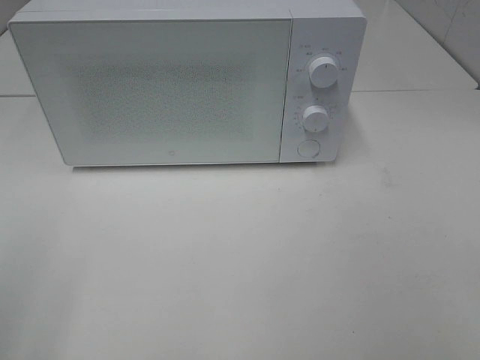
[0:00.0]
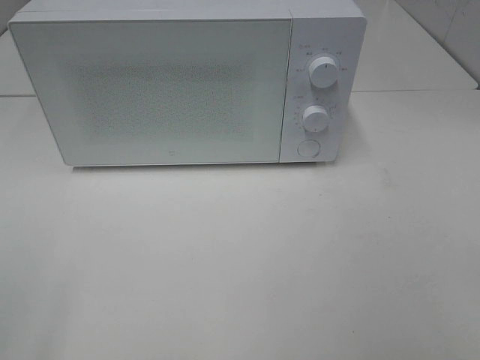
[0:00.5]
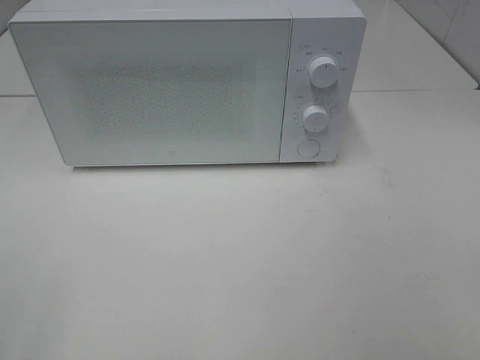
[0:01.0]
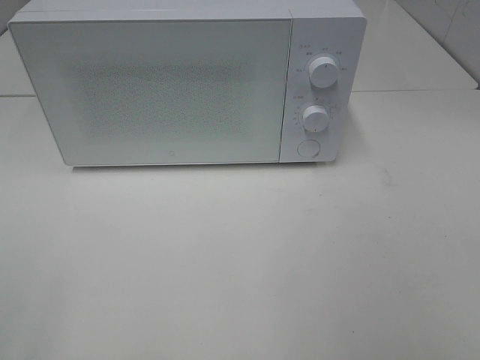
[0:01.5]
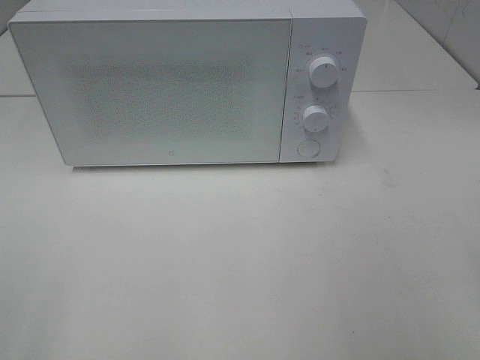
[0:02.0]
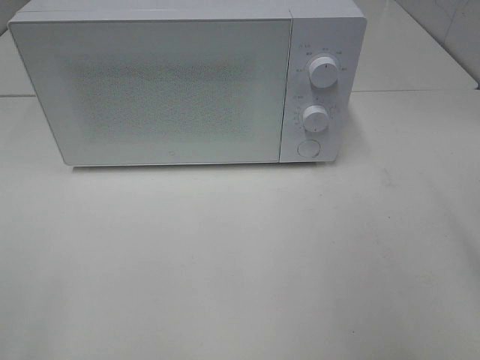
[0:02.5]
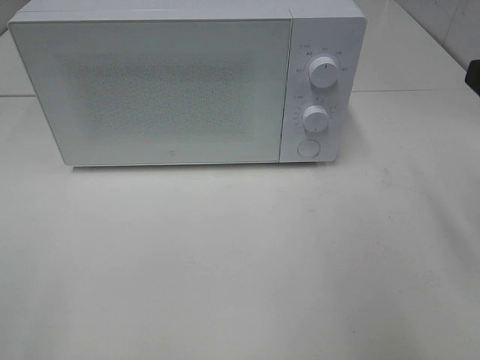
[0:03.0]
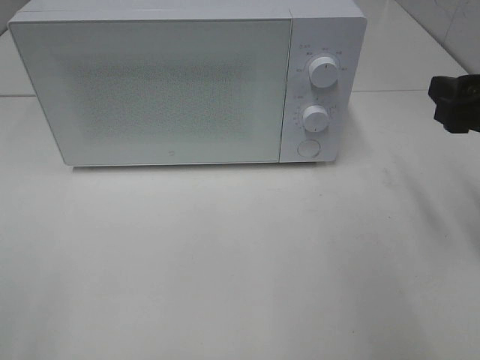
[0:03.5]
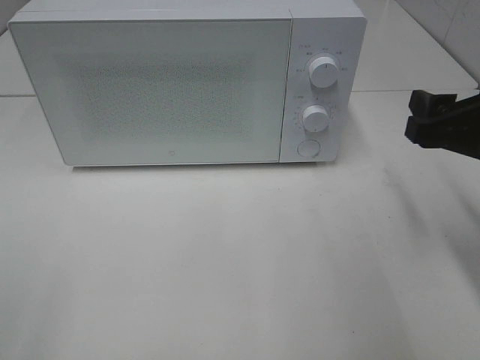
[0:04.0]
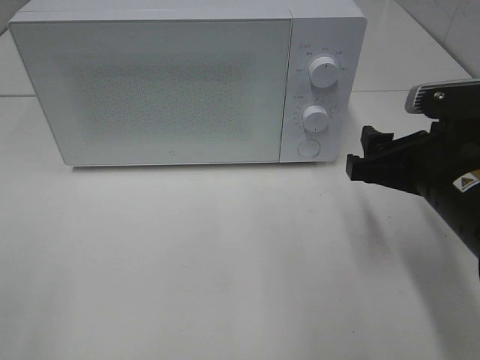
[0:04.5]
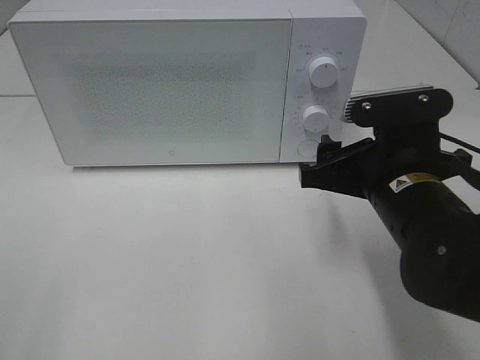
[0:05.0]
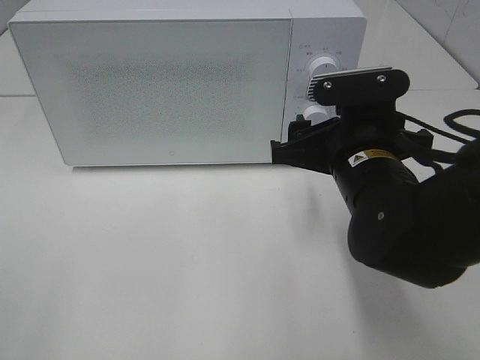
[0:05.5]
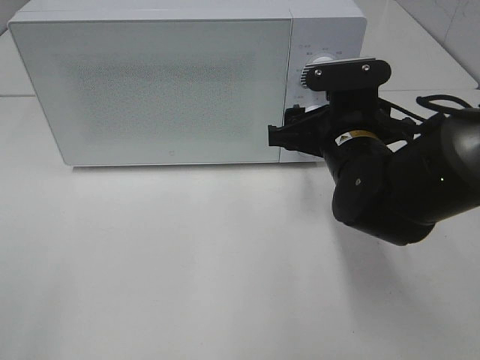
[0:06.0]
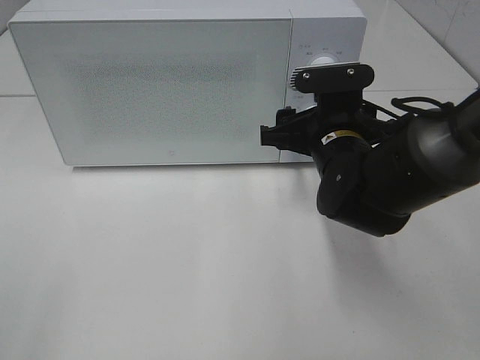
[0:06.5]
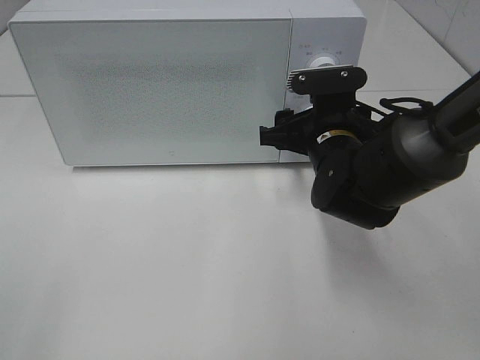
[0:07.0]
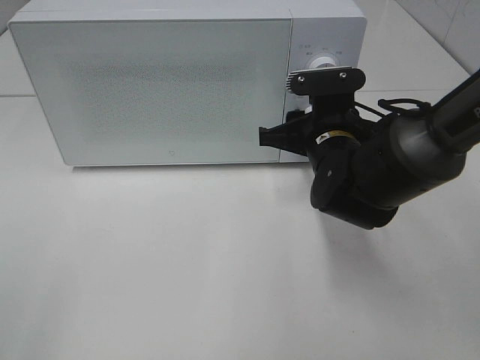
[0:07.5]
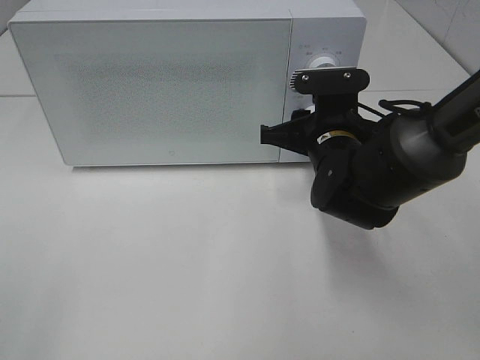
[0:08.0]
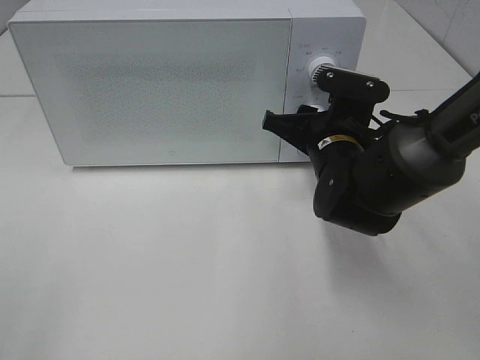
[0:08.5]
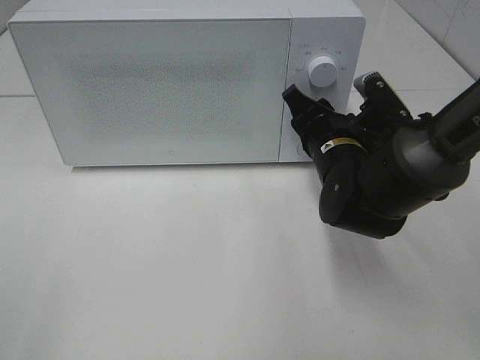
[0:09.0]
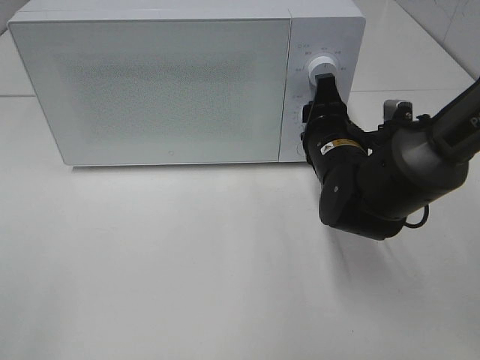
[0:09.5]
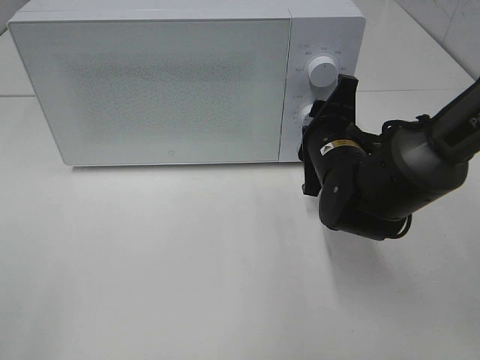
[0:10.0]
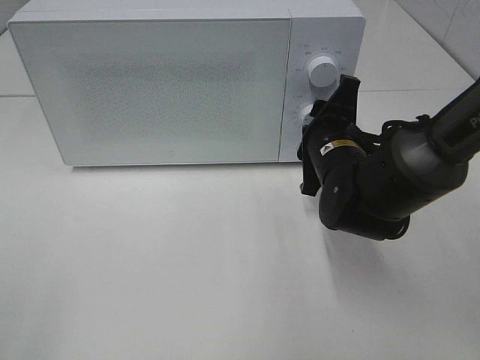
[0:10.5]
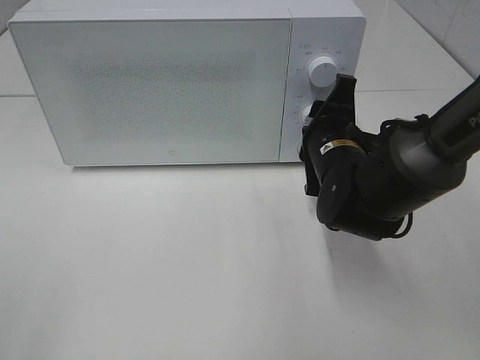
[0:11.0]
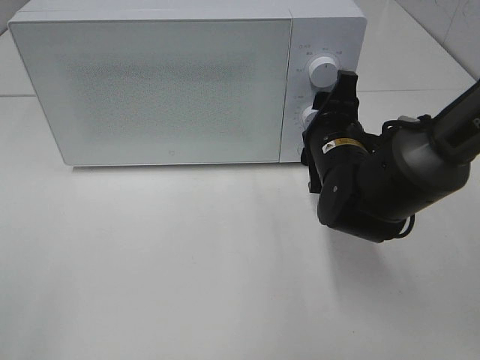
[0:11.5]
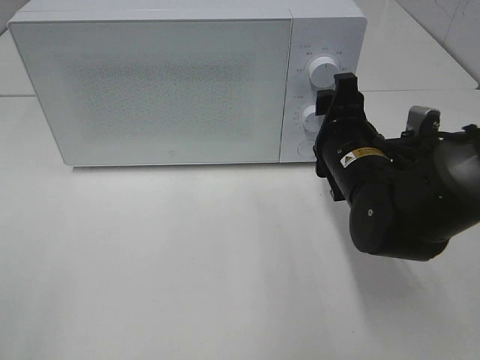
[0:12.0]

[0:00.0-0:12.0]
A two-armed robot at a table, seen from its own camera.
Task of the whole recording: Heat the burger.
Step, 0:00.0 to 0:11.5: Right hand: twist timer button.
0:02.0 to 0:04.0: The right gripper travels forward and downward by roughly 15 cm.
0:04.0 to 0:06.0: The right gripper heads to the left, forward and downward, covering some 15 cm.
0:06.0 to 0:08.0: The right gripper closes its fingers.
0:10.0 to 0:12.0: The grippers make only small movements.

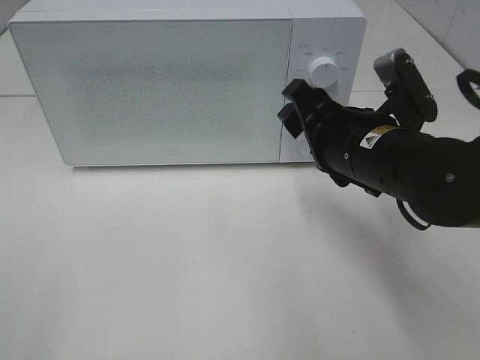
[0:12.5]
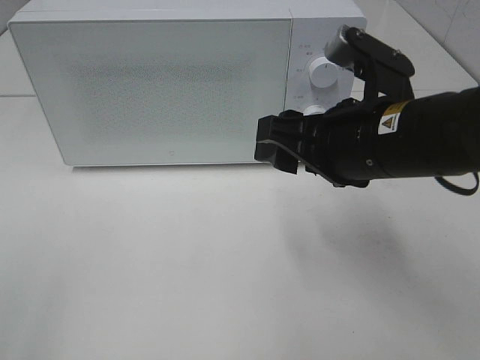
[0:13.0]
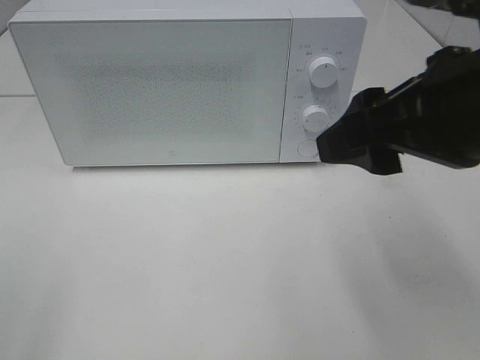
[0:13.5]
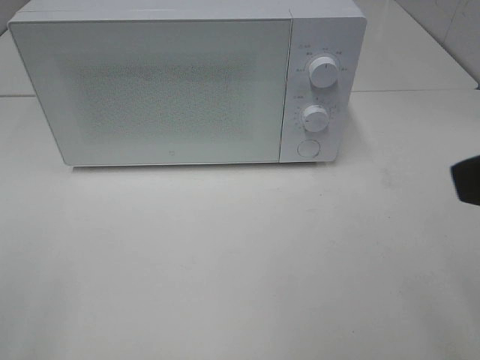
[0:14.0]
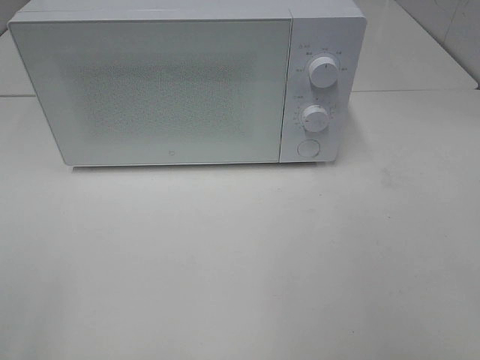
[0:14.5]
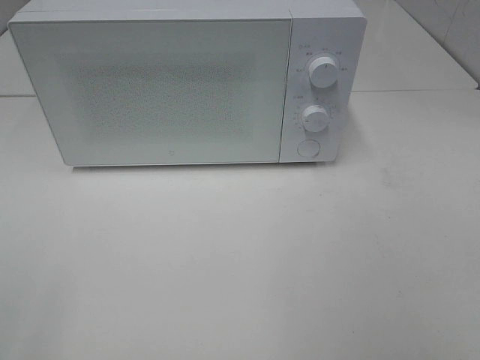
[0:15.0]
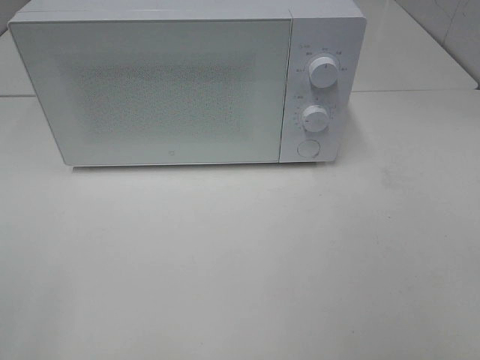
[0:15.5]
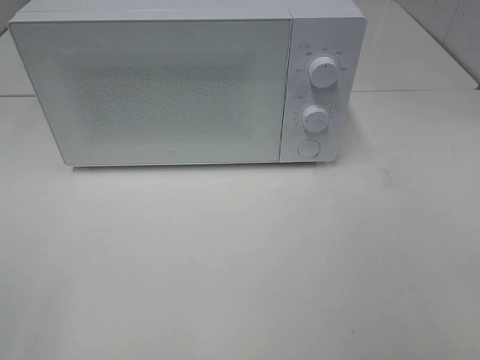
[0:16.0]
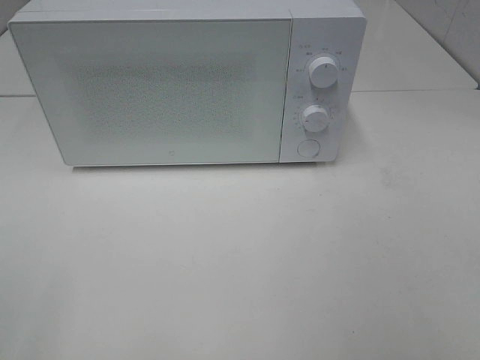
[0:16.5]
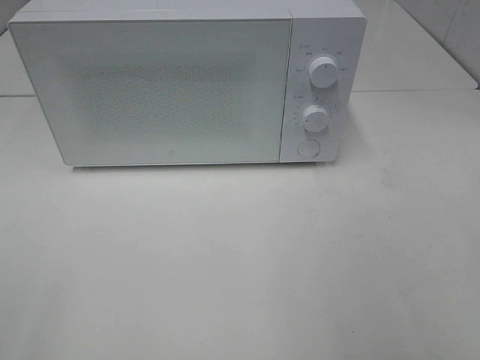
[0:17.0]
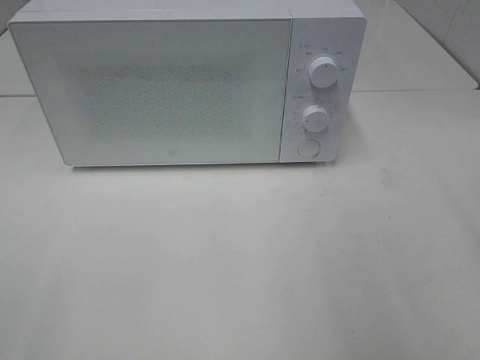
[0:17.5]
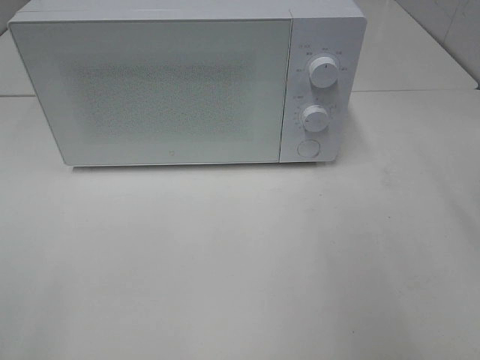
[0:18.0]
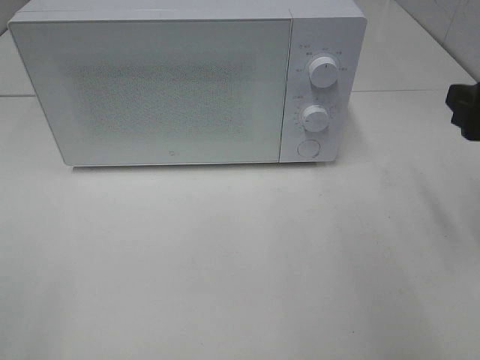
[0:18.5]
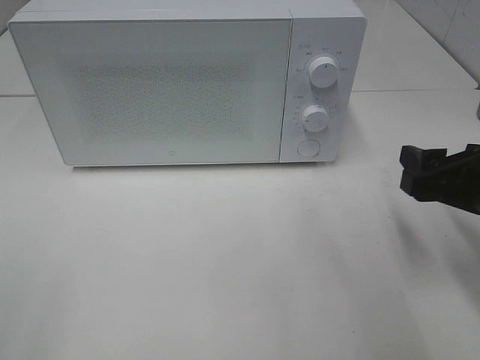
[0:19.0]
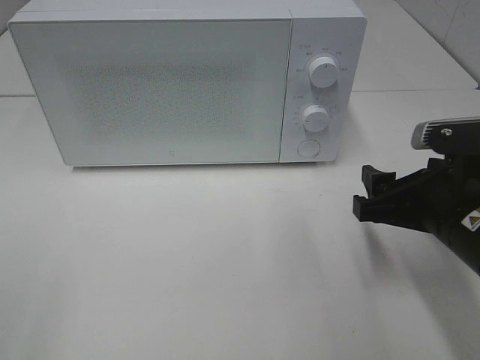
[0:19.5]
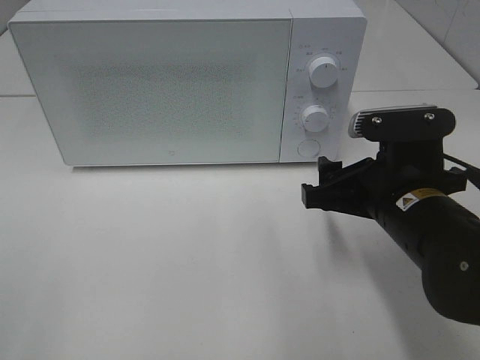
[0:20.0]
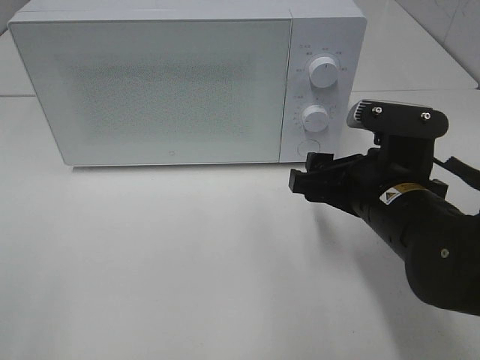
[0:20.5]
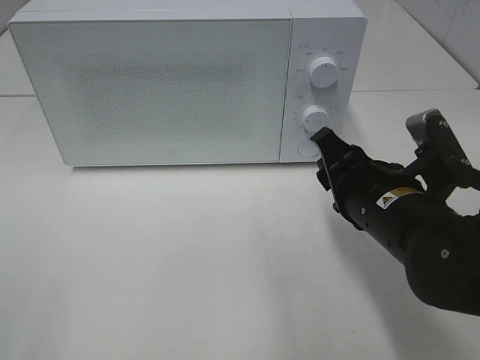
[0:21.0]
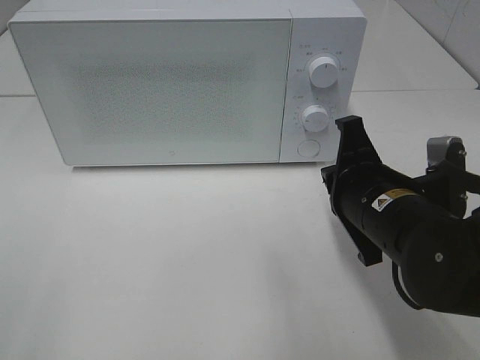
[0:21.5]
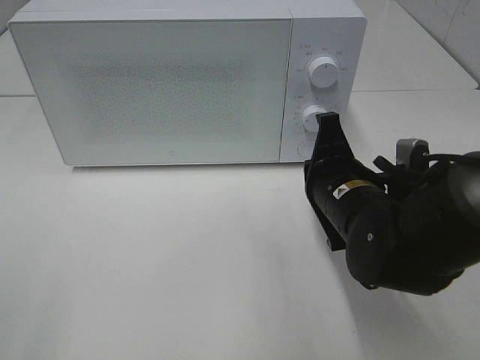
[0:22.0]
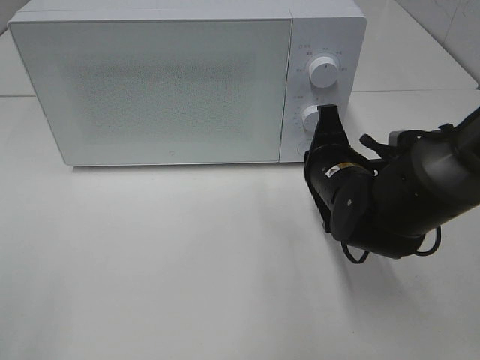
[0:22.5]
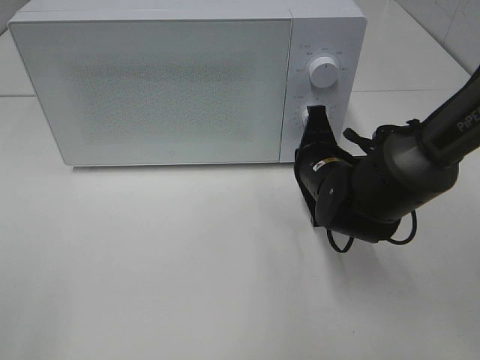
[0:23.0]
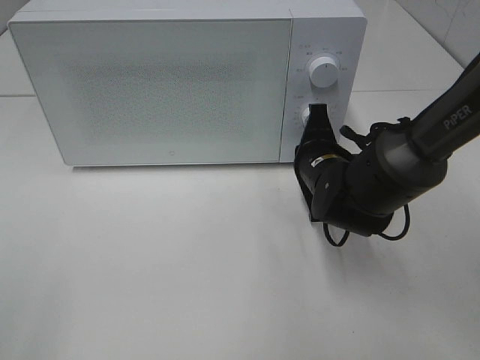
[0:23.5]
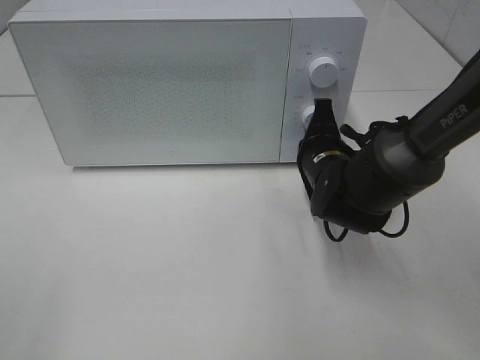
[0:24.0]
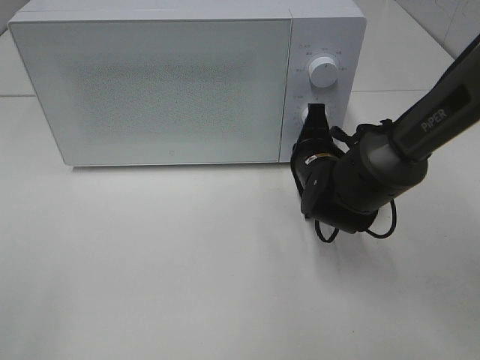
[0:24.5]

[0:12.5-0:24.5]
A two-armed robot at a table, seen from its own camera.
Task of the whole recording: Heat the burger.
0:12.5 to 0:14.5: The right gripper shifts about 30 cm backward, upward and to the right.
0:16.5 to 0:18.5: The right gripper shifts about 20 cm forward.
0:18.5 to 0:20.5: The right gripper shifts some 15 cm to the left and downward.
0:20.5 to 0:22.5: The right gripper is displaced forward by some 5 cm, and closes.
0:22.5 to 0:24.5: The right gripper shifts by approximately 5 cm.

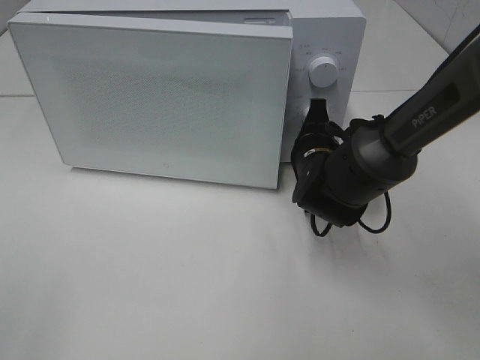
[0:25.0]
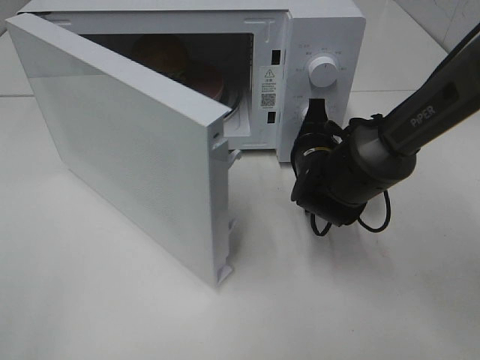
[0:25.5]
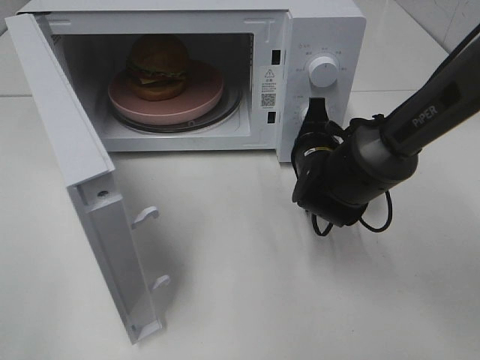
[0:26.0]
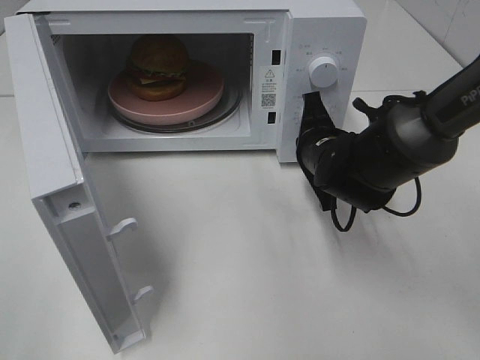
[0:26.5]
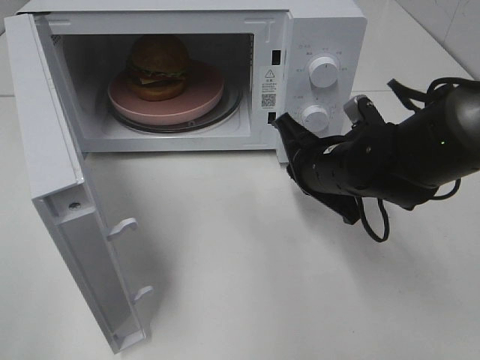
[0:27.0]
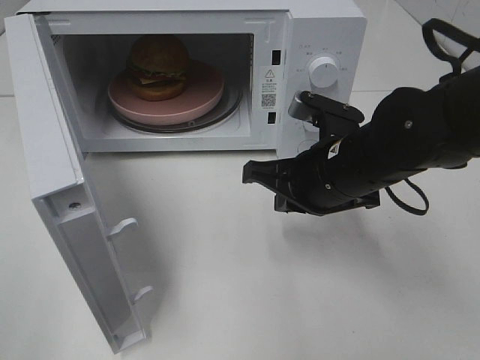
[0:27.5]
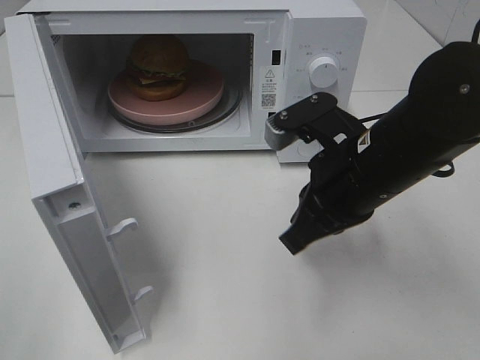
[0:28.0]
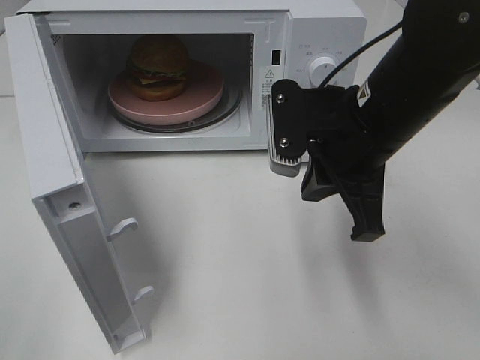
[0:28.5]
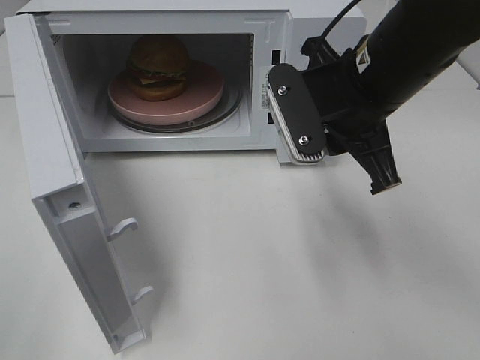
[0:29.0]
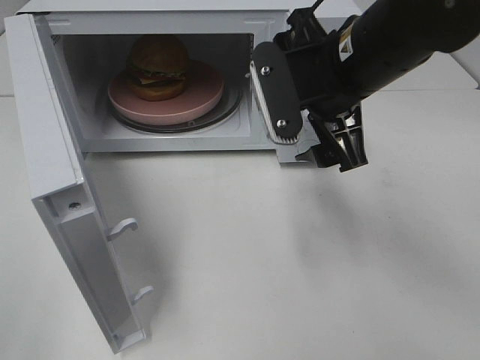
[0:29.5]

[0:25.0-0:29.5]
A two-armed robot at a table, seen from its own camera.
Task of the whole recording: Heat the burger.
0:25.0 to 0:27.0: The right gripper changes place by about 5 cm.
0:27.0 to 0:29.5: The right gripper heads upward, covering some 15 cm, and opens.
